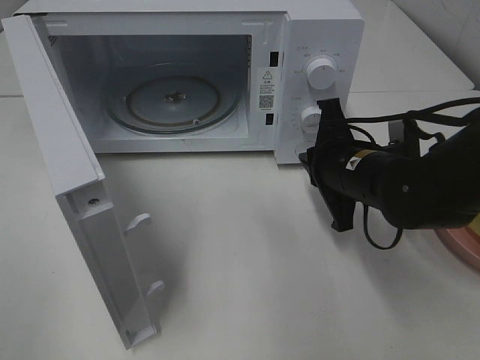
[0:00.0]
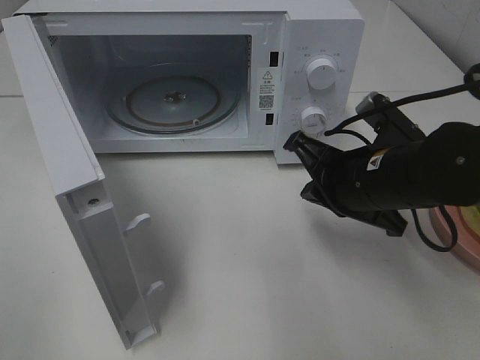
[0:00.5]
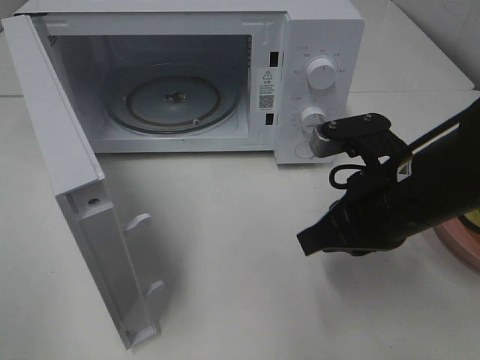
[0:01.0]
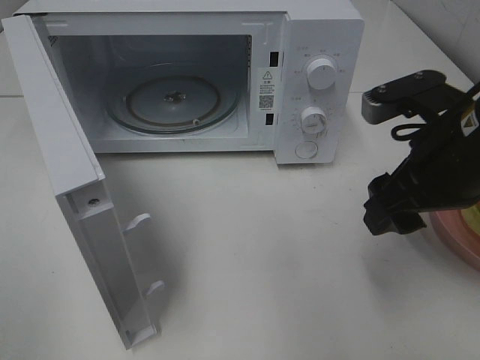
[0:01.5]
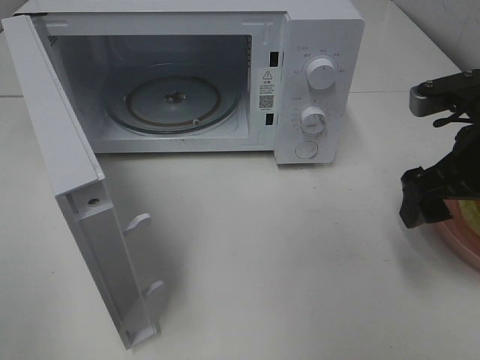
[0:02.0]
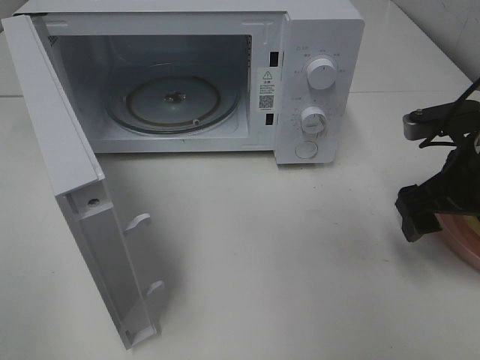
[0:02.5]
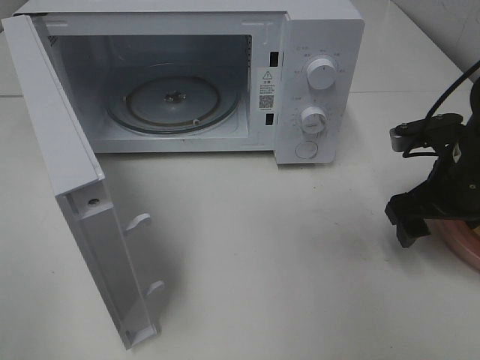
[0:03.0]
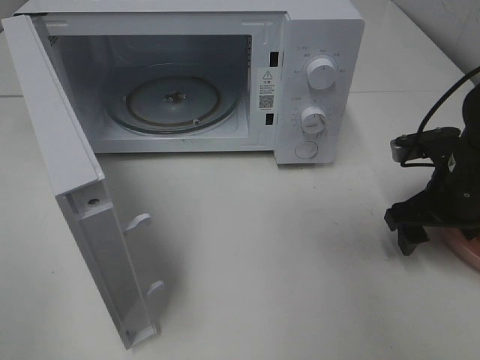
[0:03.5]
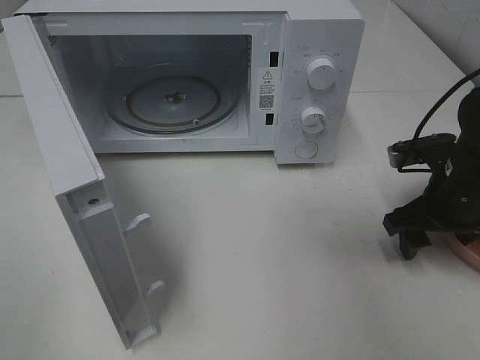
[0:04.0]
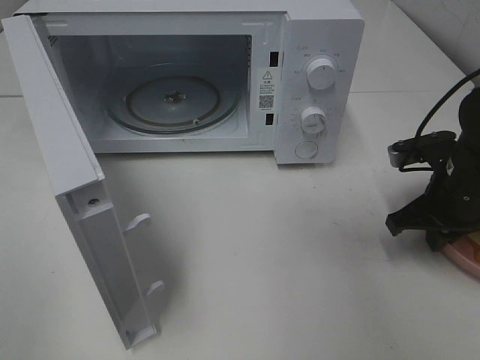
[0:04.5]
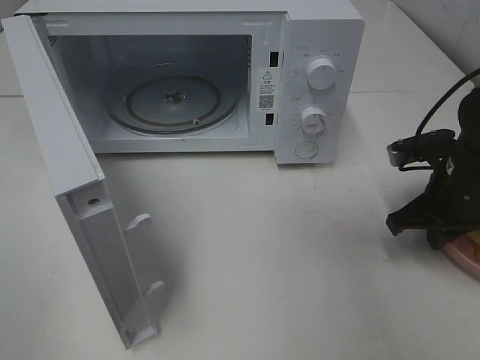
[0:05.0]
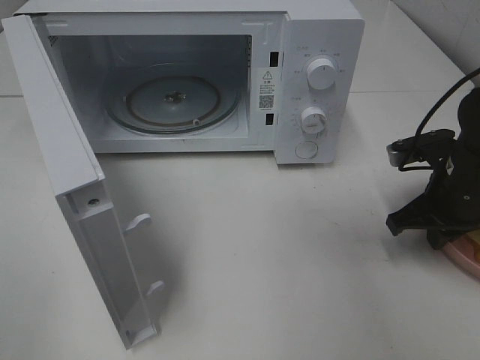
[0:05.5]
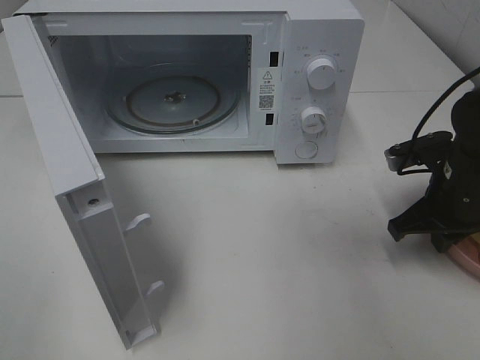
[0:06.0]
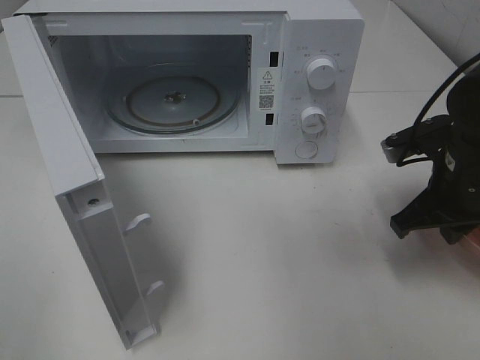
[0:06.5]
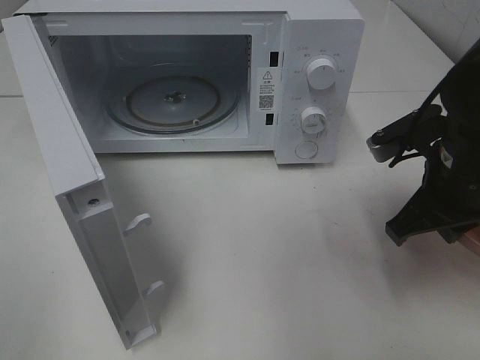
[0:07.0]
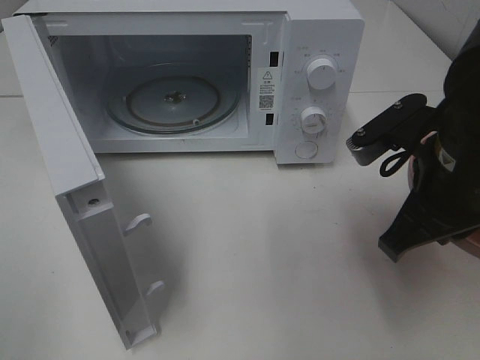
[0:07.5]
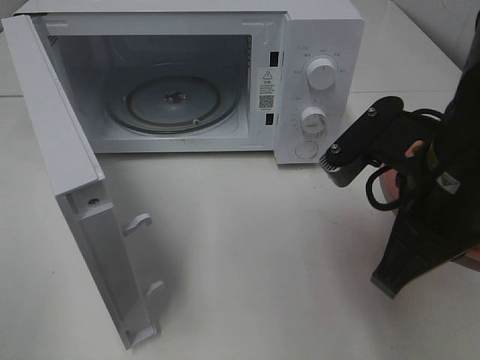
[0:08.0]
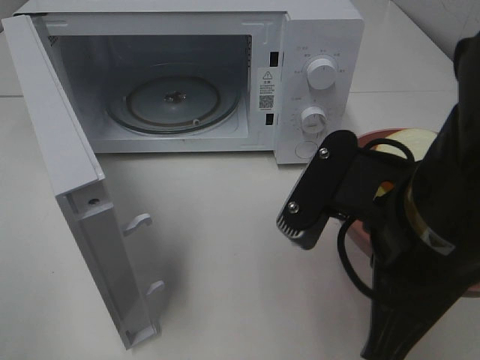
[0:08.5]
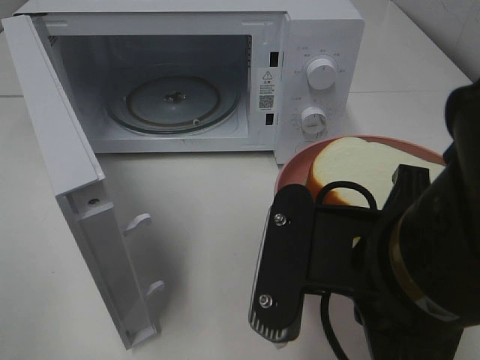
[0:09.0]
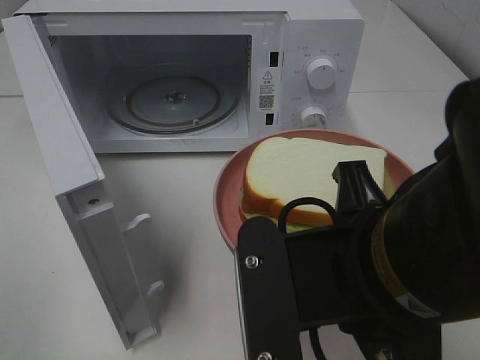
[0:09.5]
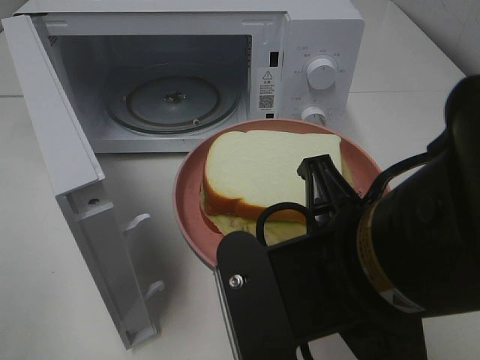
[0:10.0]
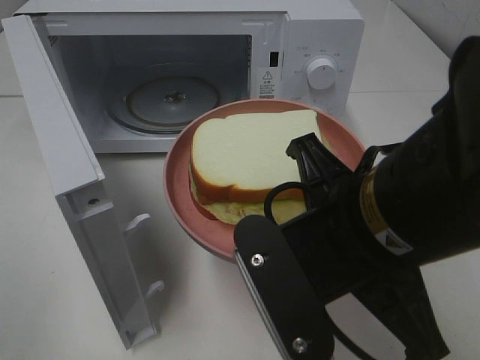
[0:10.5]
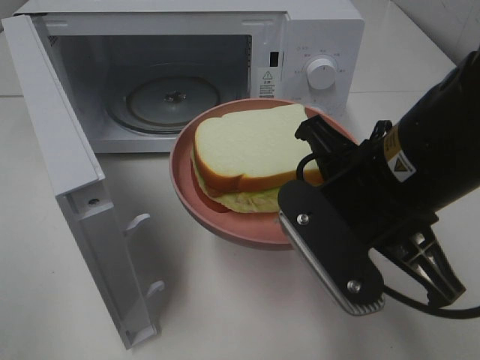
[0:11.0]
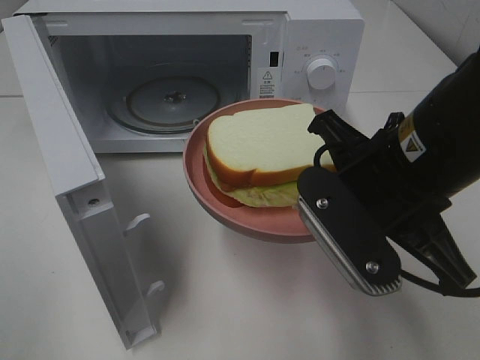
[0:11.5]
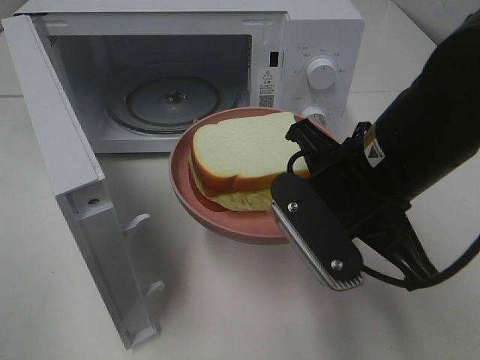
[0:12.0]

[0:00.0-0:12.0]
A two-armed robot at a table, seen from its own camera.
Task of the whole recording: Heat Sandwich.
Step, 0.0 to 4.5 s: Right hand: grab the plate with the sandwich.
0.0 to 2.0 s: The right gripper travels to the right and upward by approximately 15 cm, and opens up.
2.0 to 4.0 s: The right gripper shifts some 10 cm downward.
4.0 to 6.0 s: The right gripper closes.
6.0 to 8.0 s: The right gripper is displaced backward, upward and to the left by some 20 cm.
8.0 to 10.0 s: The right gripper shifts some 10 cm backward and to the left.
10.0 to 12.0 s: The right gripper shifts some 10 cm forward.

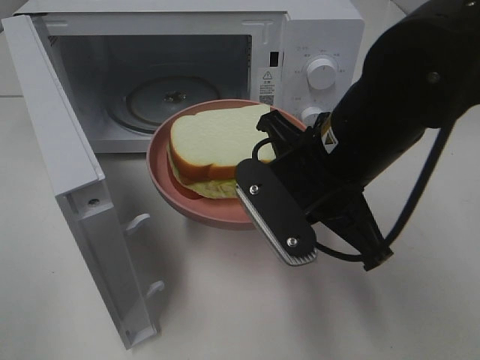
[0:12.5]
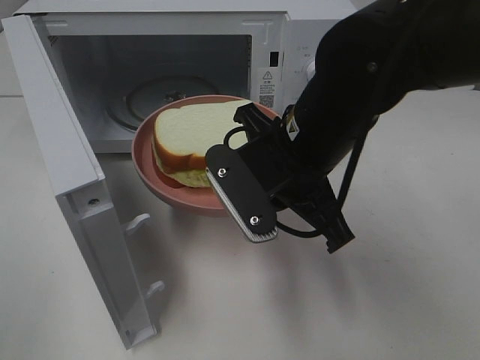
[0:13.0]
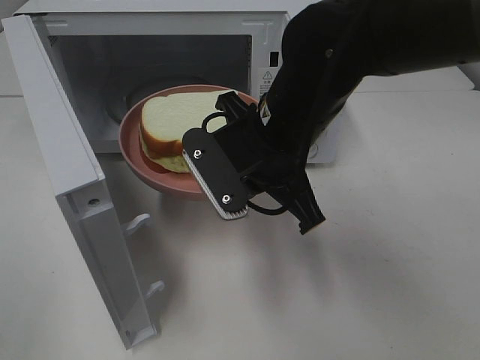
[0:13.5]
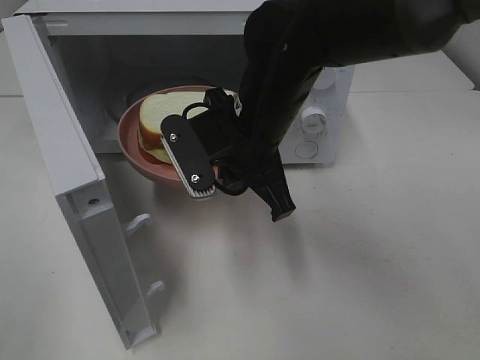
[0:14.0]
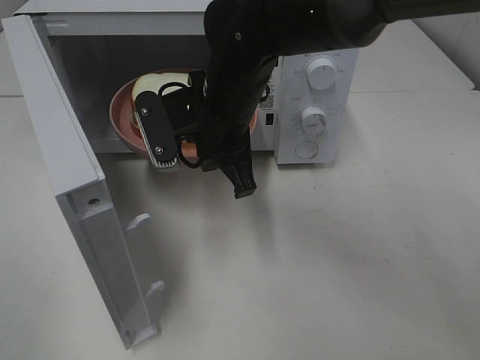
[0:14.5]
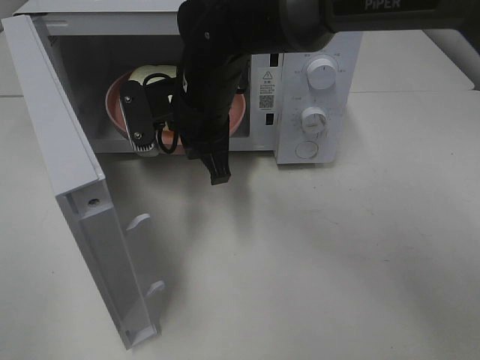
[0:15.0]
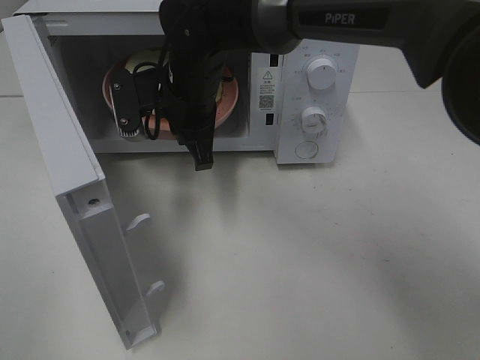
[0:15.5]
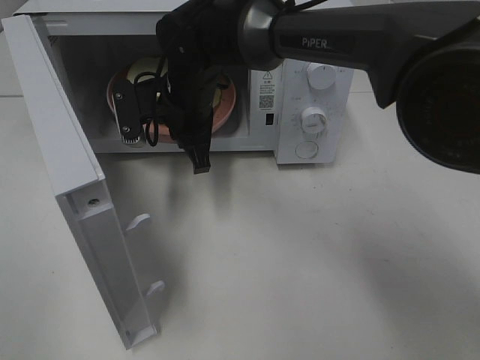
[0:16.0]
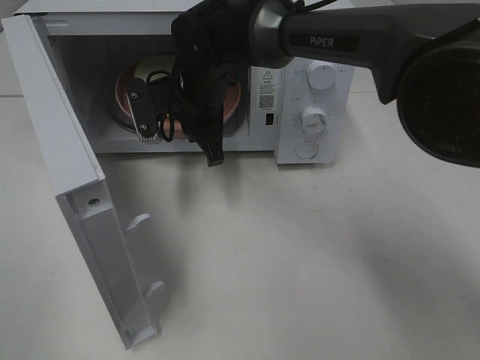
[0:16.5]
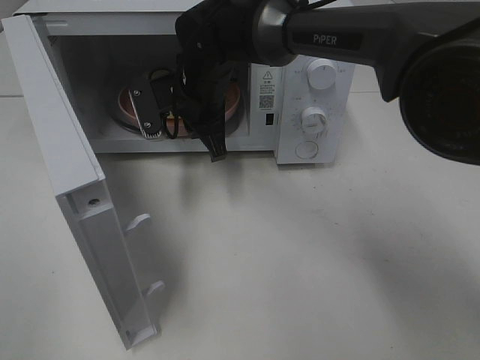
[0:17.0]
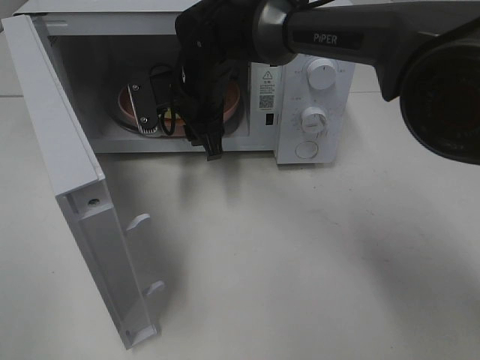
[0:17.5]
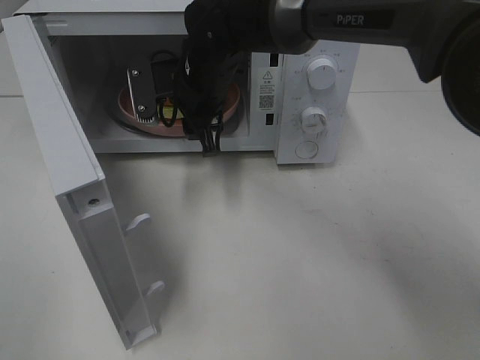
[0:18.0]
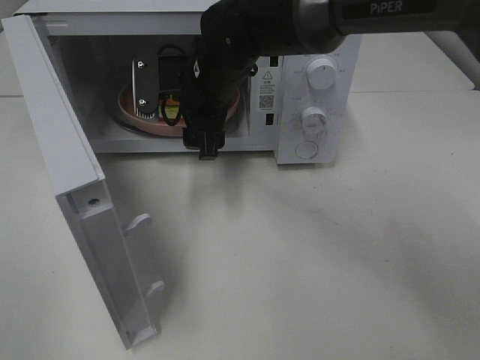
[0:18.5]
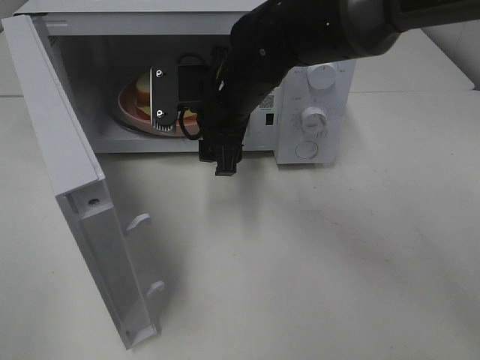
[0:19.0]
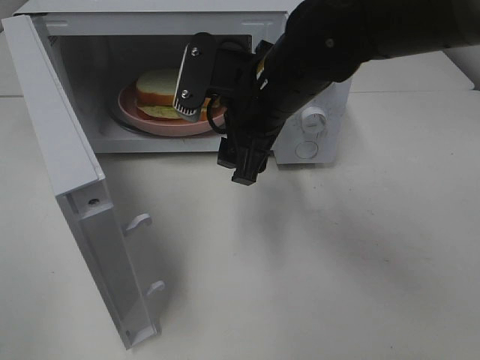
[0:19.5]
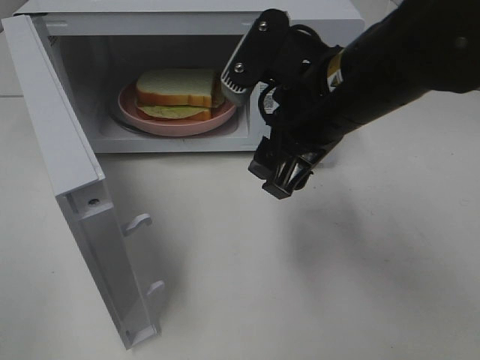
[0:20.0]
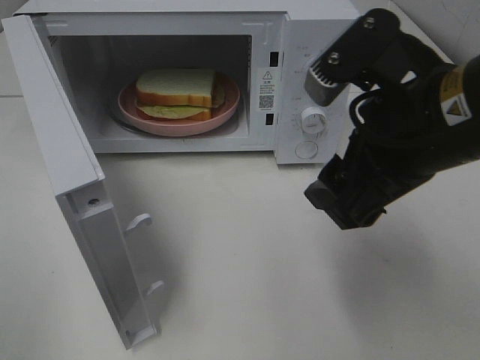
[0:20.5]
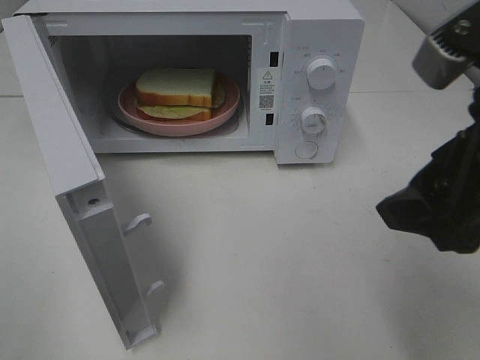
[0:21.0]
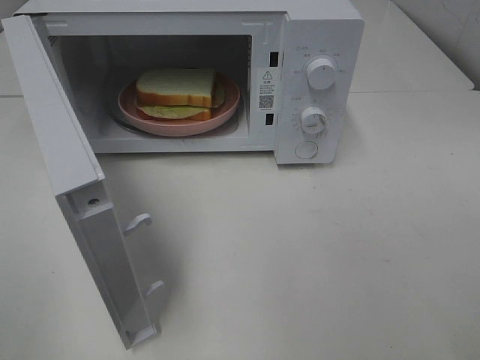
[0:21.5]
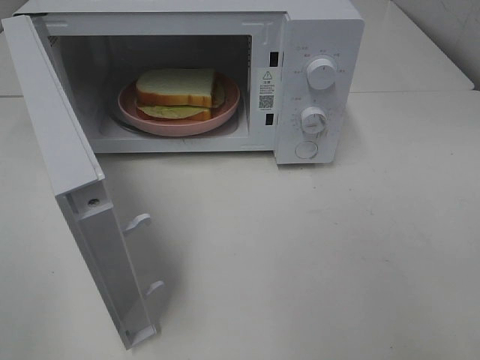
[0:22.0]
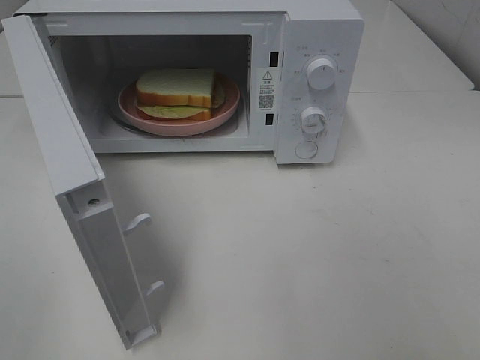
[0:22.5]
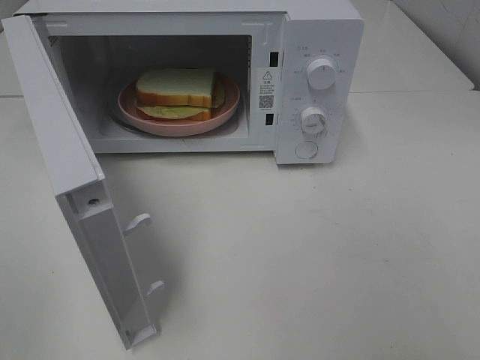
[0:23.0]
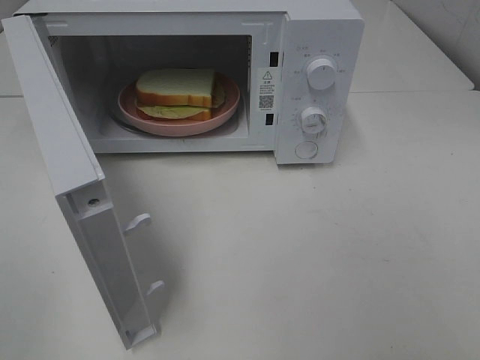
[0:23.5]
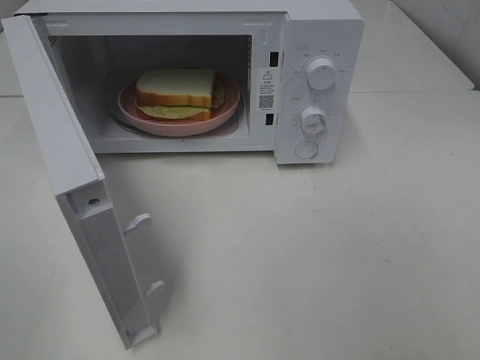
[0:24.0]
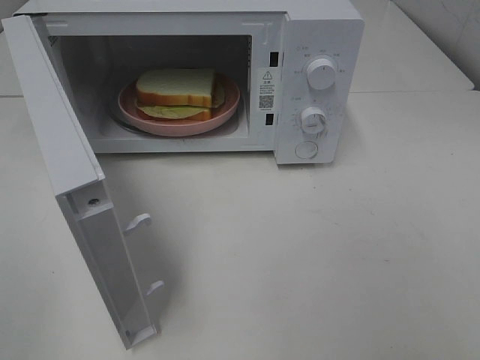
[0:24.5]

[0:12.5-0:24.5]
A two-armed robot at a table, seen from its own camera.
Task of the whole recording: Heat Sandwich.
Step, 12.5 to 18.5 s: Right hand: place the plate in the microwave.
12.5 to 14.5 s: The right gripper goes approximately 15 cm forward and to the left.
14.5 to 16.5 s: The right gripper heads forward, covering roughly 10 cm.
16.5 to 18.5 s: The right gripper opens.
18.5 to 20.5 s: The right gripper goes about 25 cm backward, to the right and upward.
20.5 to 22.5 s: The right gripper heads backward and to the right, covering some 20 cm.

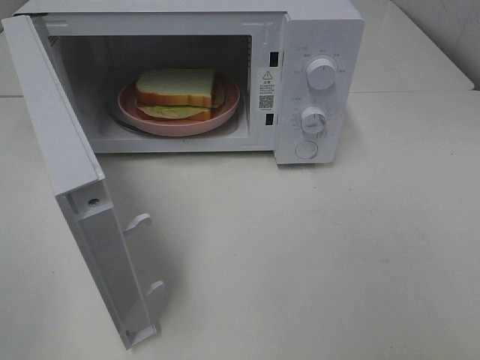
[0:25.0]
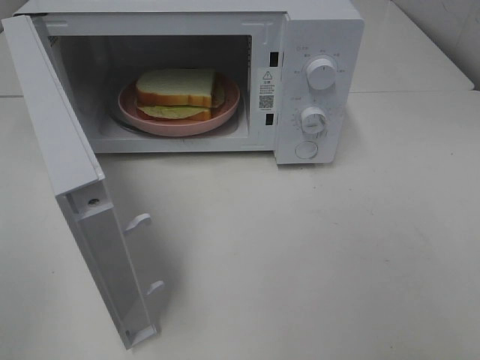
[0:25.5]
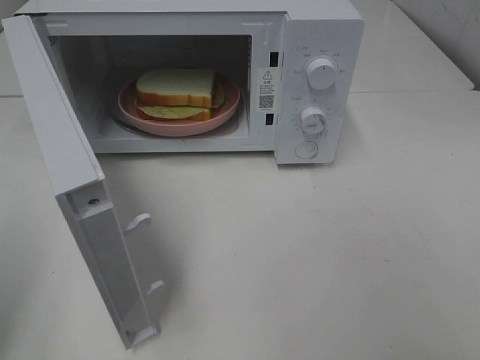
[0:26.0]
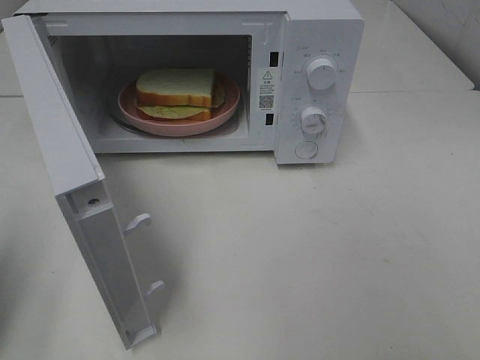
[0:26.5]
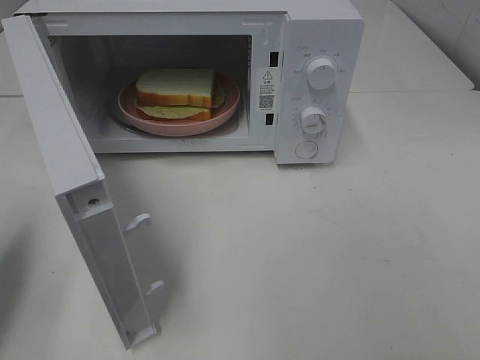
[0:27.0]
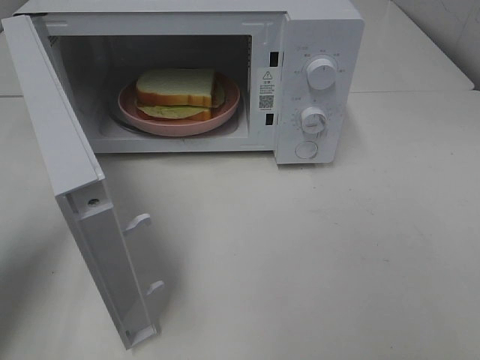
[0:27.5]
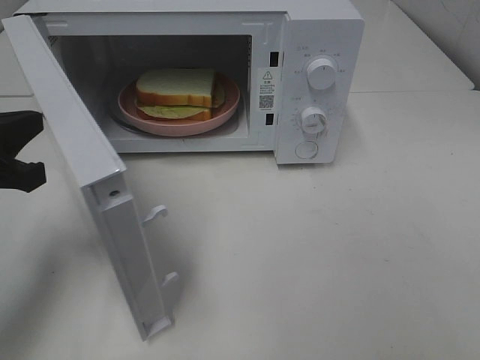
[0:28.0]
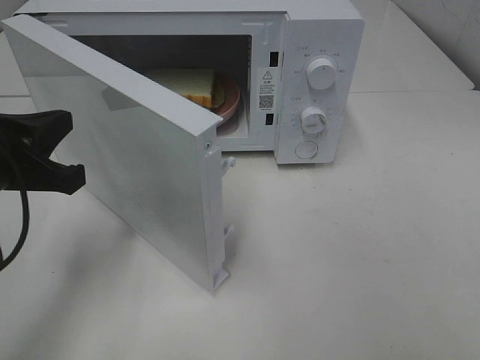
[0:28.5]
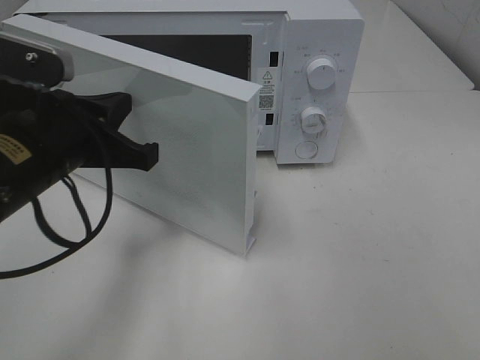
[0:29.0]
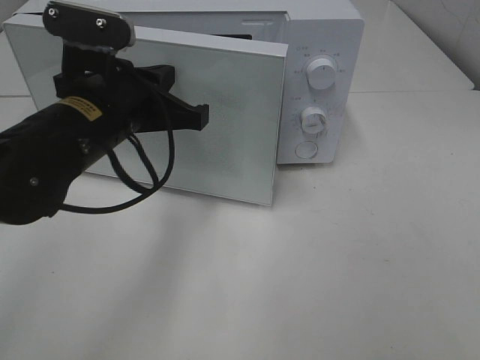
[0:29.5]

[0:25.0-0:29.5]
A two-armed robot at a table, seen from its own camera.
Task of the whole recording: Heat Sandwich.
25.0 to 27.0 s: The left gripper moves forward, some 20 cm, and closes.
27.0 to 29.5 s: The left gripper goes some 25 cm to the right and forward.
